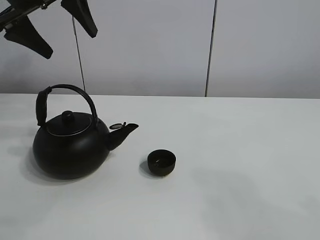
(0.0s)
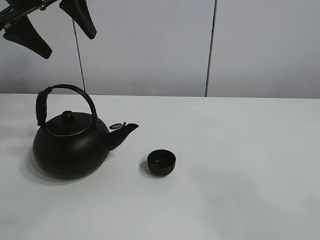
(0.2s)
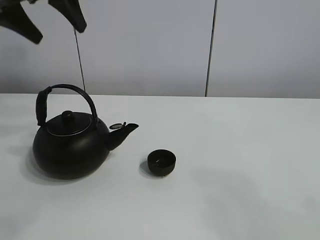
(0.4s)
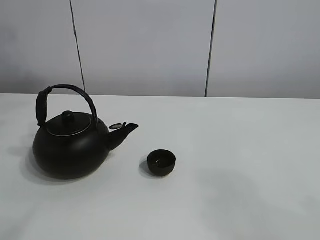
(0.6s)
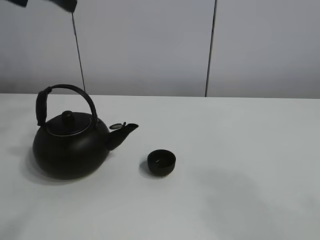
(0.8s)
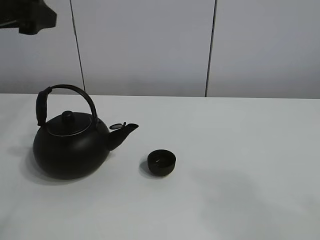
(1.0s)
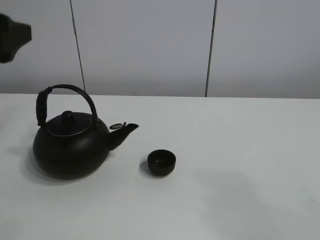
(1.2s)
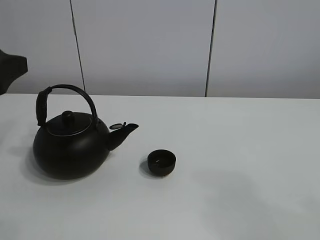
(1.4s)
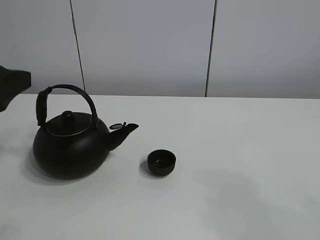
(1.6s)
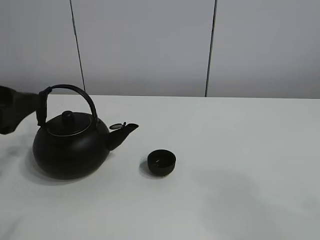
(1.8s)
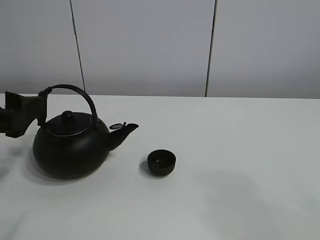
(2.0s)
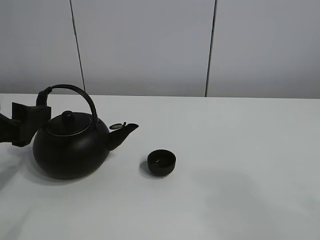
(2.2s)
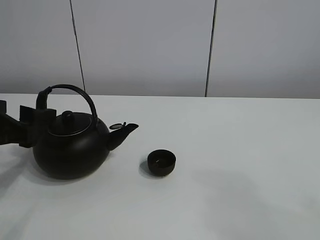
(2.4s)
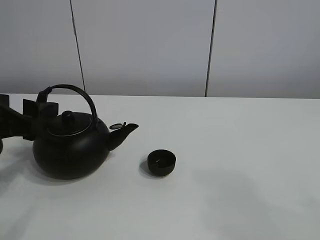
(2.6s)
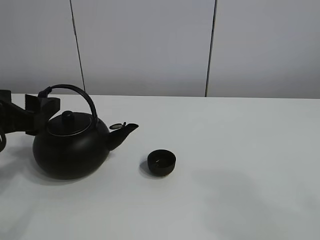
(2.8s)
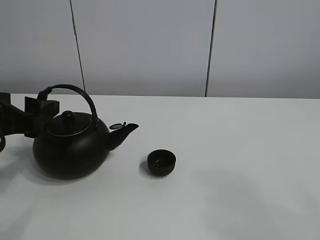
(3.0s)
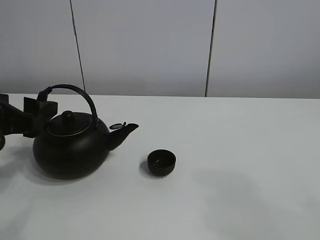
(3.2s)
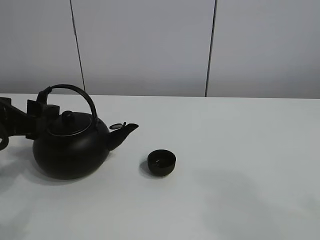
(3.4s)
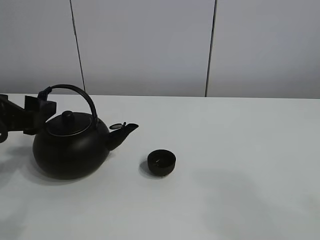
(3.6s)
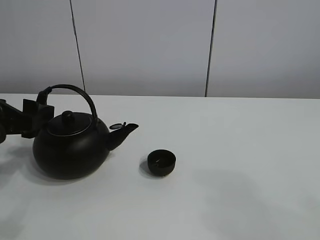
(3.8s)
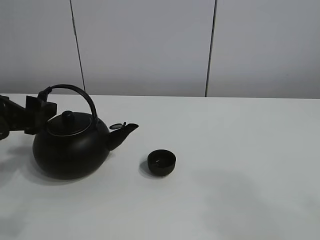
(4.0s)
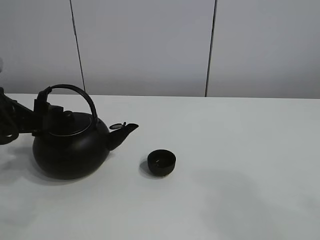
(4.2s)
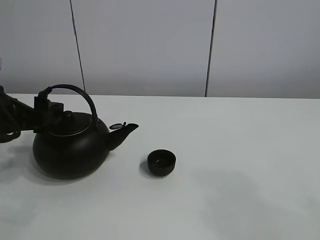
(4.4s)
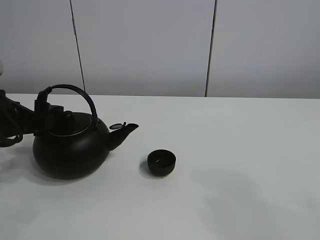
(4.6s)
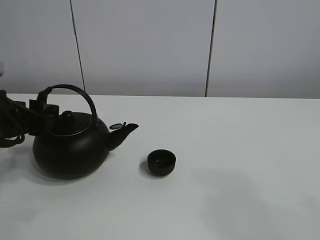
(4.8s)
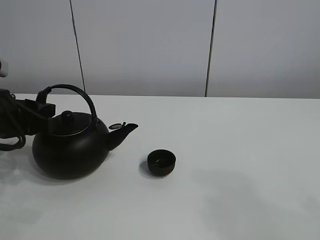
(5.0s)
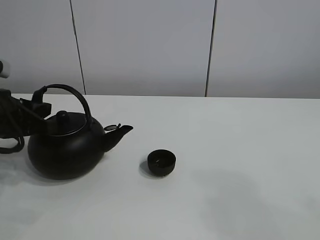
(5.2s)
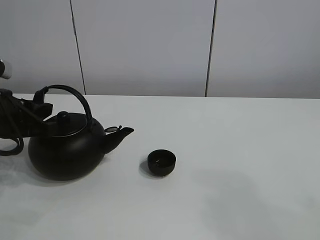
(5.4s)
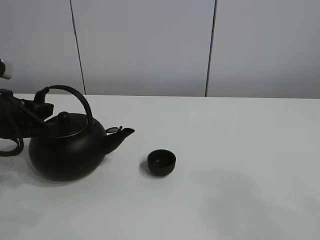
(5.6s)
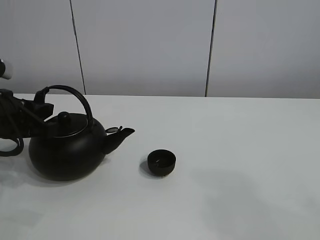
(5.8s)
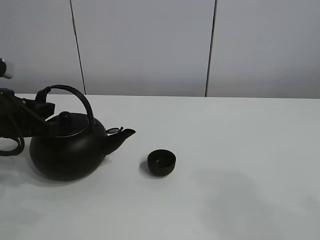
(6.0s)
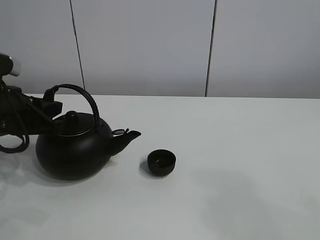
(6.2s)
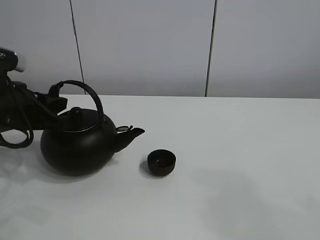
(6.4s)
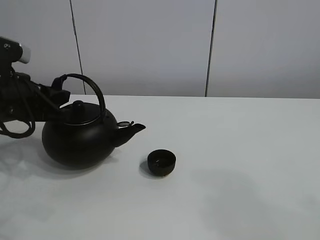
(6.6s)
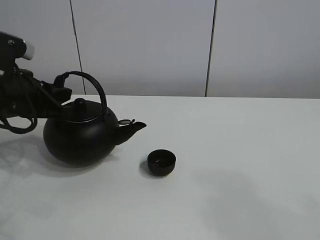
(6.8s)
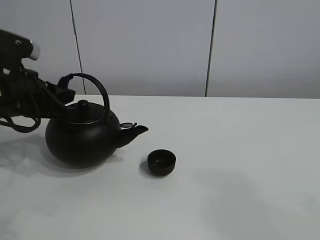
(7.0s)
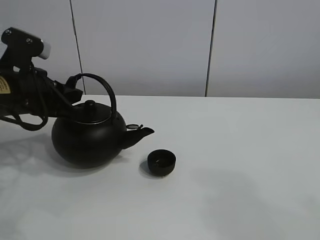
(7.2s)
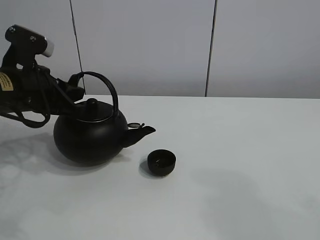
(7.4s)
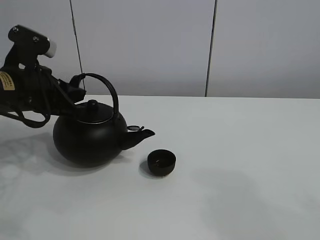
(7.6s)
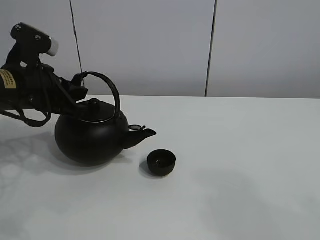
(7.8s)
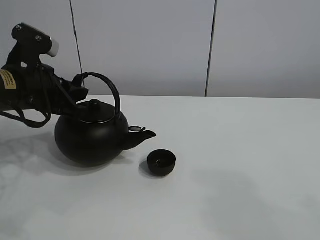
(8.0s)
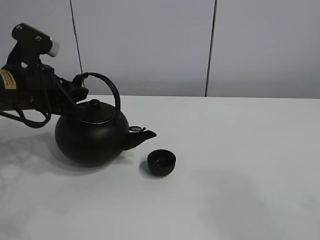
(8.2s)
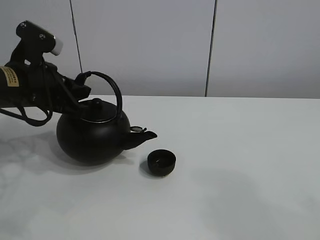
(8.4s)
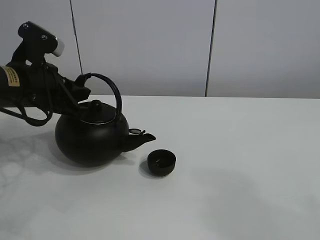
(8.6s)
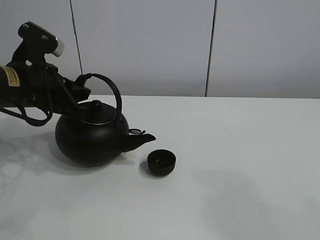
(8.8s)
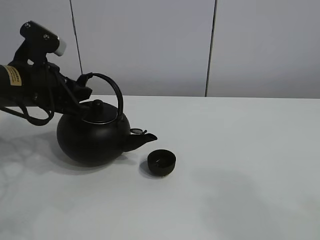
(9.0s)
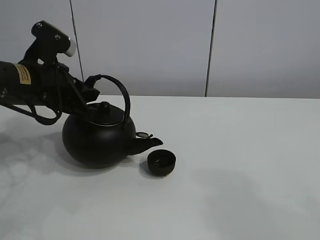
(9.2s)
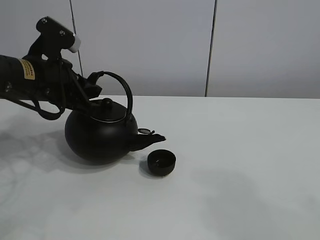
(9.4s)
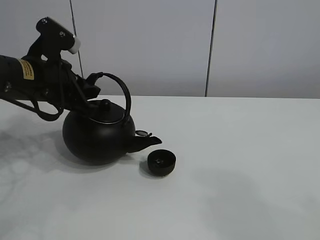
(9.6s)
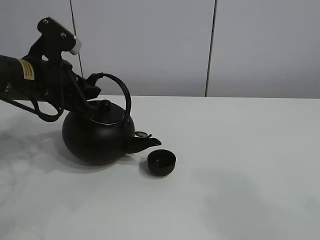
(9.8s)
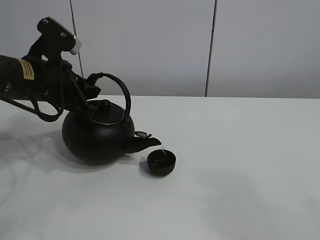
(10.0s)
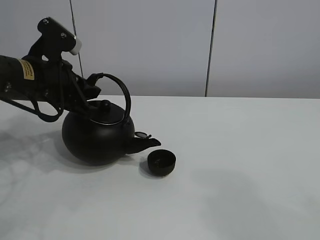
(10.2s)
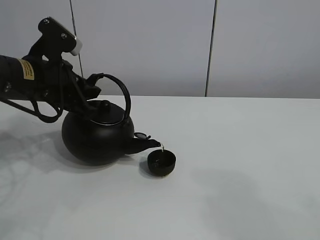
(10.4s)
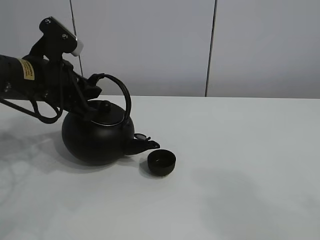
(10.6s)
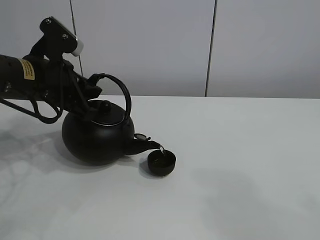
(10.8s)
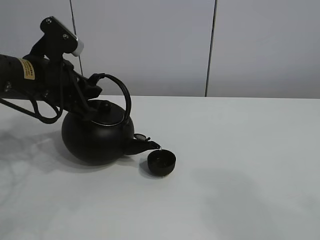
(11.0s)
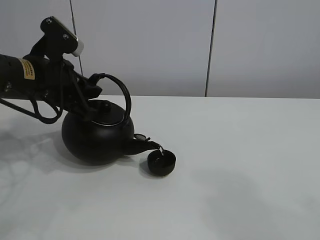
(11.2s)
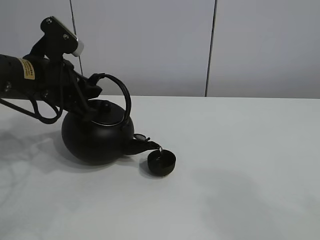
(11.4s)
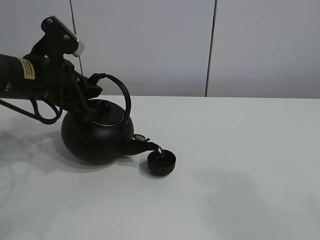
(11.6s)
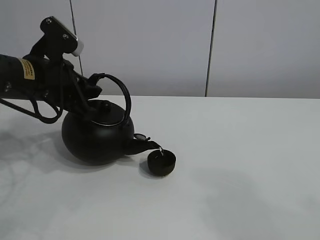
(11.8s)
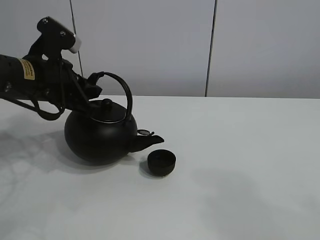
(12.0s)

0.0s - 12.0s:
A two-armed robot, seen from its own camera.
Task of the whole recording: pour tea into the teacup.
Step, 0.0s - 6.6s: Pick up the teapot with the left gripper.
Step, 6.8s - 11.8s: Pour tea into the teacup with the left gripper.
0.0s - 1.6s: The left gripper heads backward and downward, covering about 20 cm.
1.6s - 3.0s: The left gripper is displaced downward by roughly 5 cm.
3.0s - 4.4s: The grippers make only small movements.
4.4s - 6.0s: The left gripper closes up.
6.0s - 7.6s: The left gripper shifts by approximately 5 cm.
7.6s - 10.4s: The grippers move only a little.
10.4s - 12.0s: Both grippers stay about where they are.

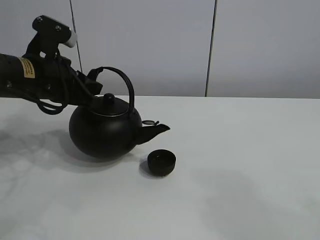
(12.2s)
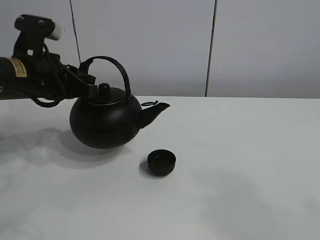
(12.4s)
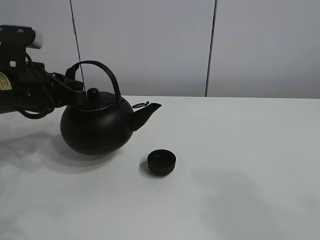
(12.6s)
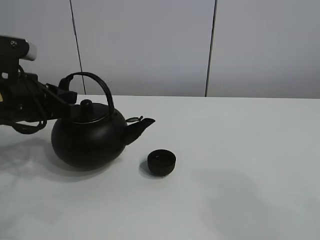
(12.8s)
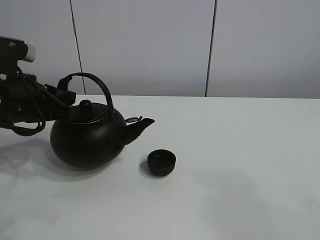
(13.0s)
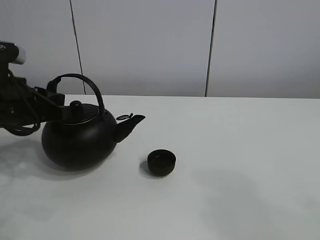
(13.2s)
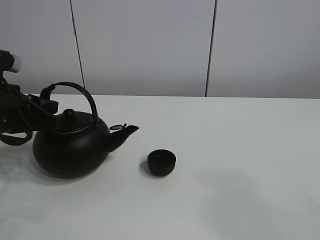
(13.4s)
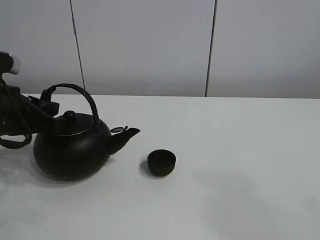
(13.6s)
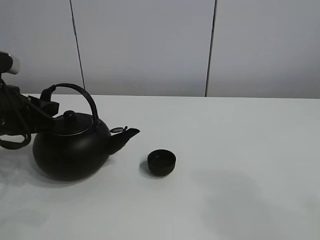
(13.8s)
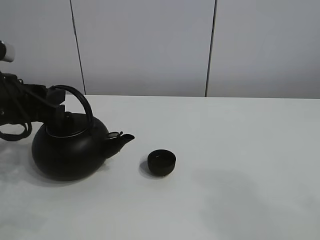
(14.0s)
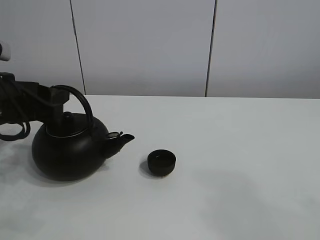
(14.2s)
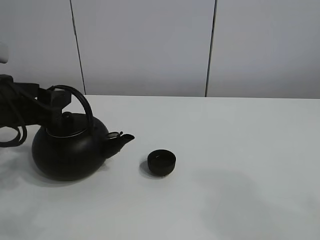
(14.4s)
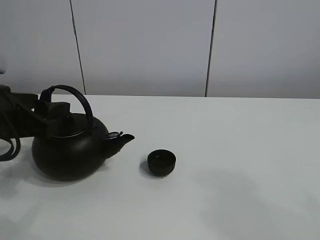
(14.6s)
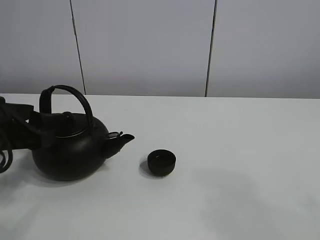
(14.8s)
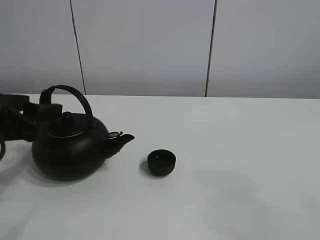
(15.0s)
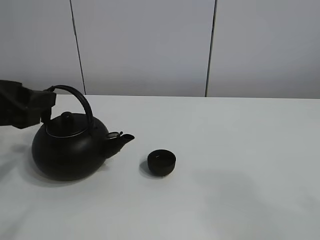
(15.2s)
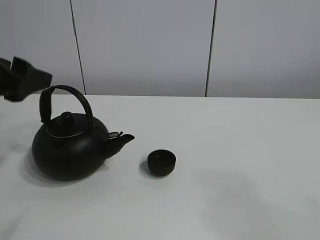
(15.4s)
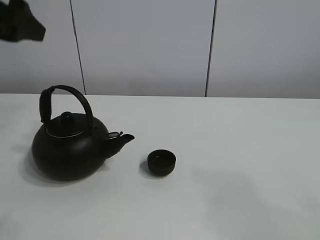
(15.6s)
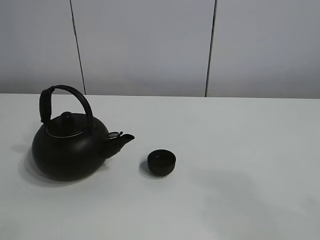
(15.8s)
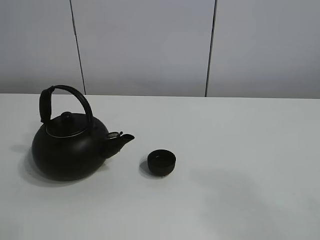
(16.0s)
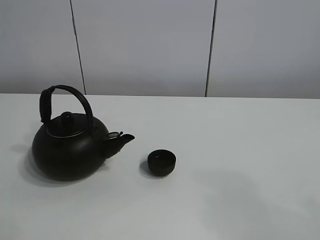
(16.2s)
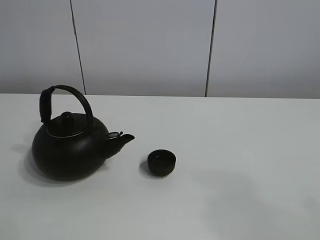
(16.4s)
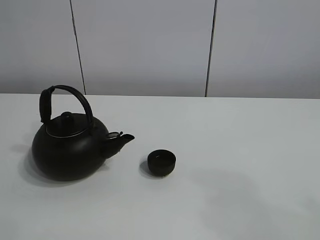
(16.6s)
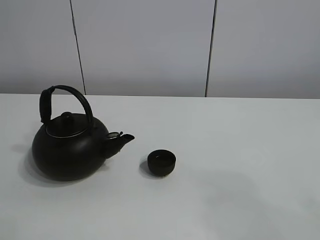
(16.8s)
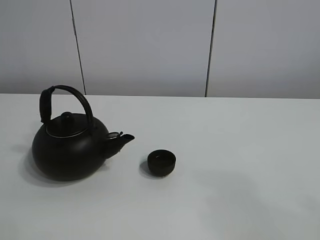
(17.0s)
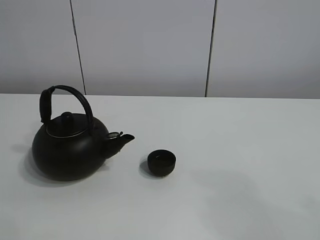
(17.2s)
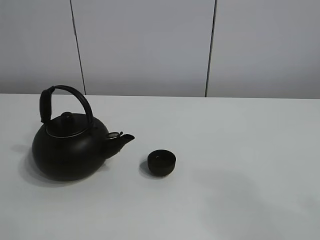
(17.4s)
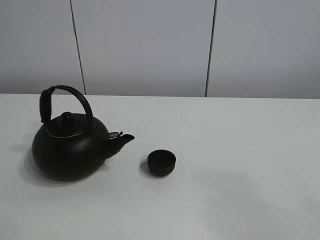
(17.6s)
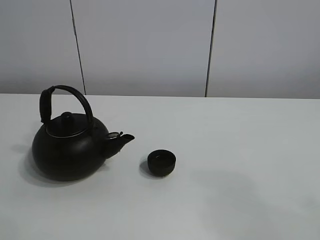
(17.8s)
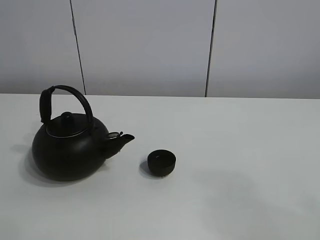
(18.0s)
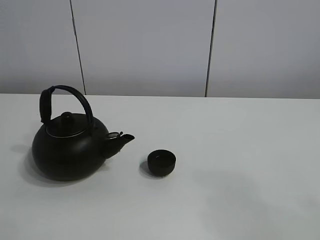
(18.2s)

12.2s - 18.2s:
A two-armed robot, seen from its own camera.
Task of the whole recording: pour tea into the teacup.
12.2s - 13.8s: The left gripper shifts about 5 cm backward.
13.8s - 15.2s: The left gripper ends up roughly 5 cm from where it was, and opens its fingers.
15.2s - 16.6s: The left gripper heads upward and to the left, covering about 30 cm.

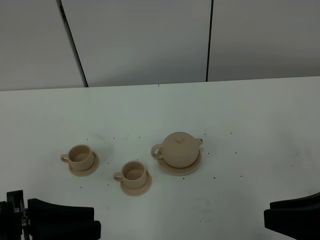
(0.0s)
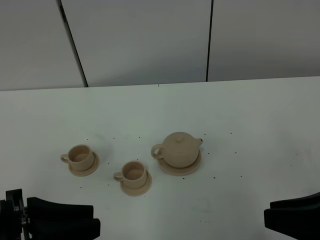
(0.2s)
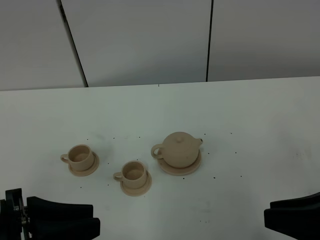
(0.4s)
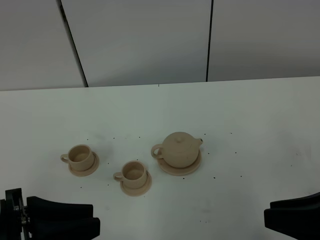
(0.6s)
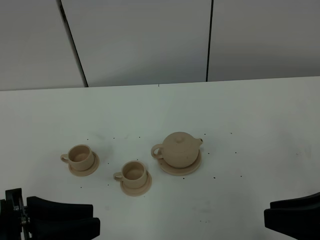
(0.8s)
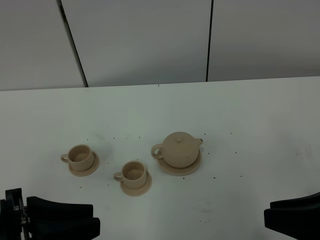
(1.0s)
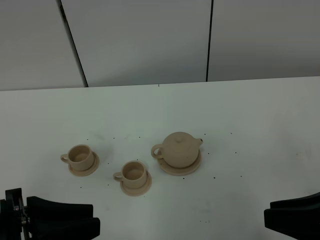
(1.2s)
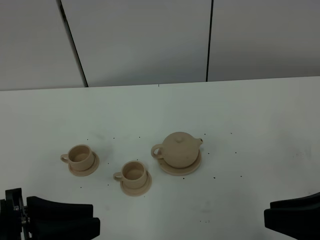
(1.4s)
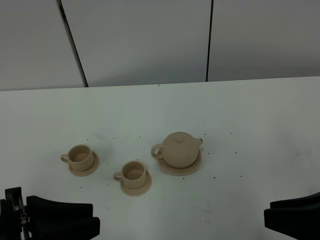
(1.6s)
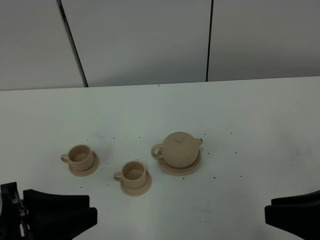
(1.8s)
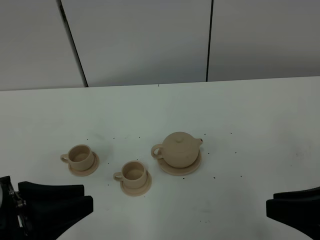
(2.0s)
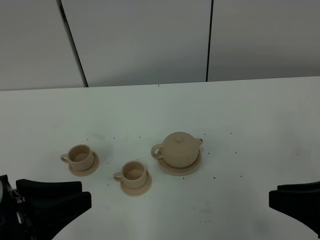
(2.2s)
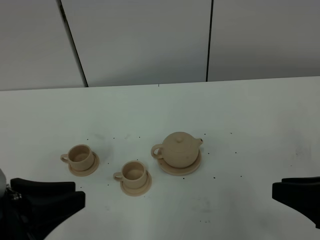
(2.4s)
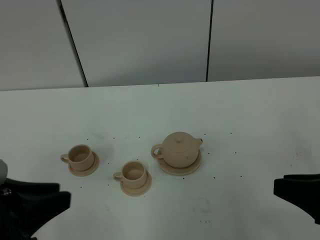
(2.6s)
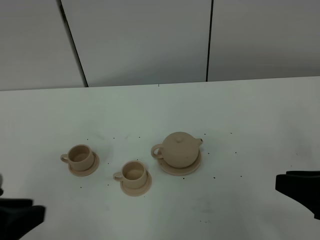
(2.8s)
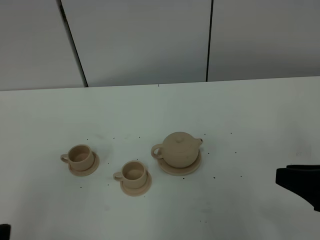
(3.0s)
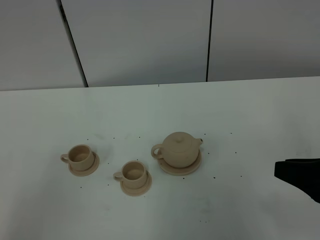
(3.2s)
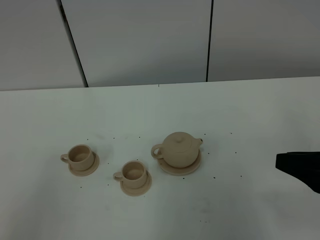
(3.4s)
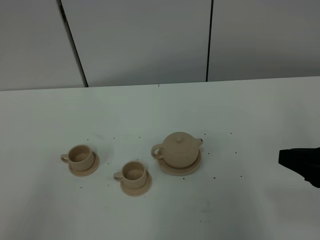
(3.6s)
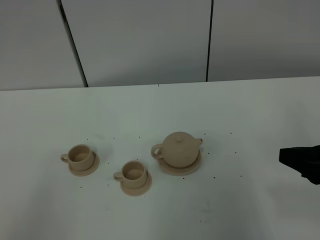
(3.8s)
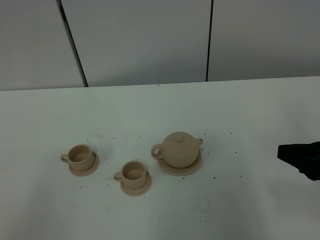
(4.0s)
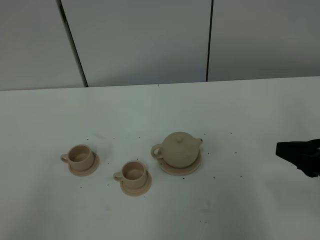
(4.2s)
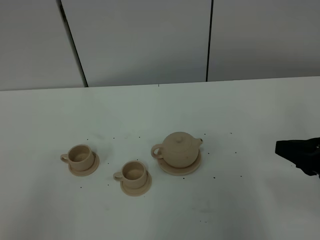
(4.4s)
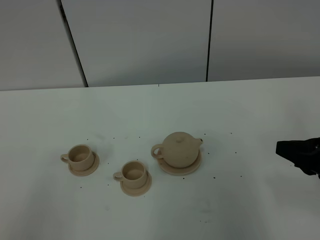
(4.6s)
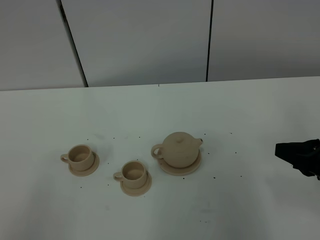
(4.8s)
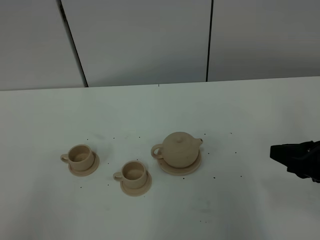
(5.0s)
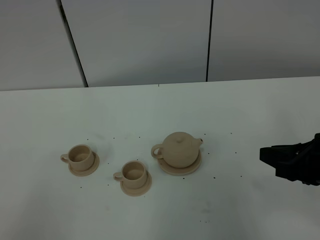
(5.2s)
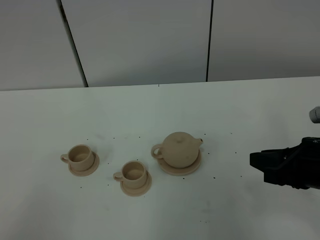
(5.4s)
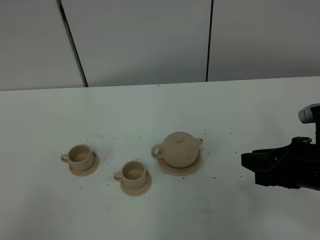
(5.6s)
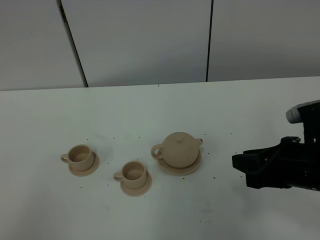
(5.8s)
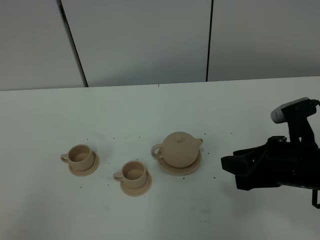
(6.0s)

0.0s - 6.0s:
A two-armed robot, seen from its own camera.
Task of the whole recording: grasp the brown teapot and pour the tea into the two brown teacups one by one, put the brown teapot back in its original place.
0.0s - 1.6s: Both grippers stay put.
1.6s - 3.0s: The left gripper travels to the left by some 5 cm.
3.0s - 4.4s: The right gripper travels forward by about 5 cm.
4.4s - 6.0s: The right gripper moves to the left, approximately 10 cm.
